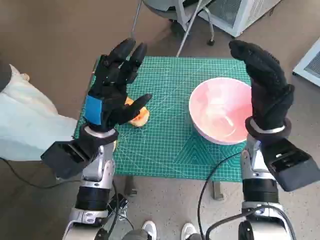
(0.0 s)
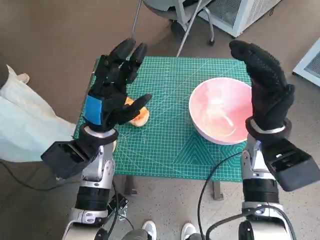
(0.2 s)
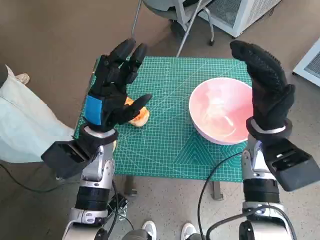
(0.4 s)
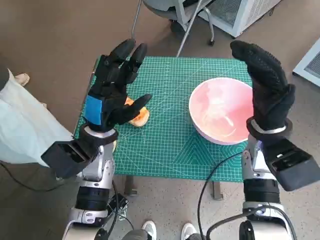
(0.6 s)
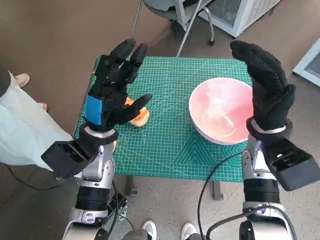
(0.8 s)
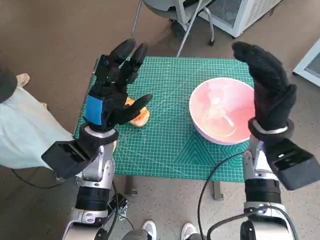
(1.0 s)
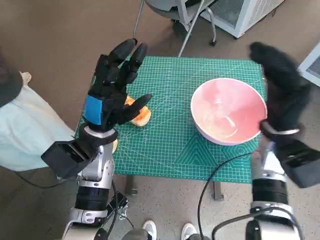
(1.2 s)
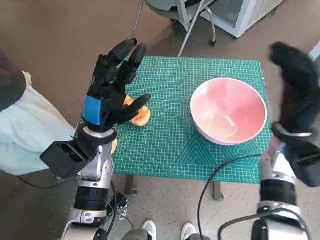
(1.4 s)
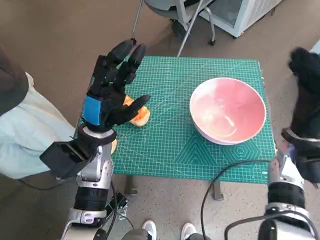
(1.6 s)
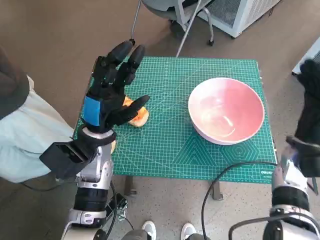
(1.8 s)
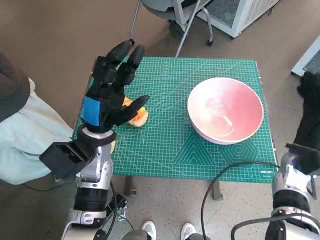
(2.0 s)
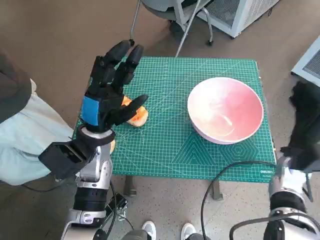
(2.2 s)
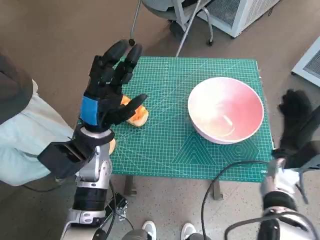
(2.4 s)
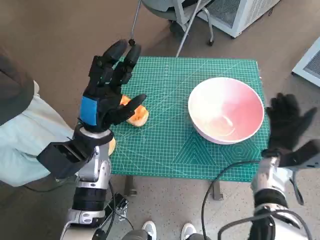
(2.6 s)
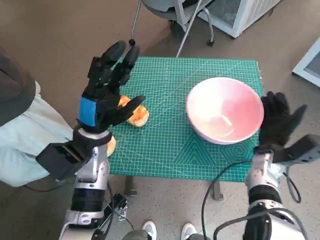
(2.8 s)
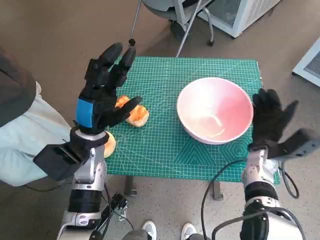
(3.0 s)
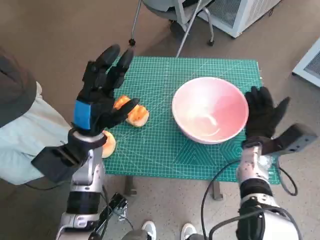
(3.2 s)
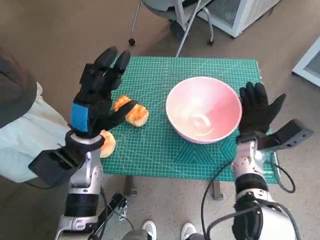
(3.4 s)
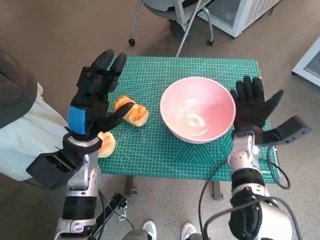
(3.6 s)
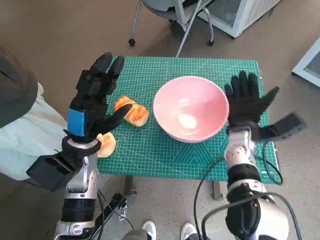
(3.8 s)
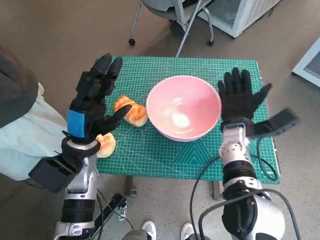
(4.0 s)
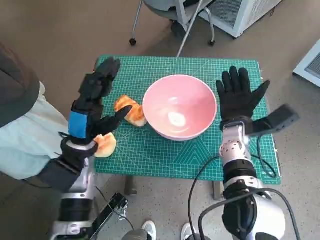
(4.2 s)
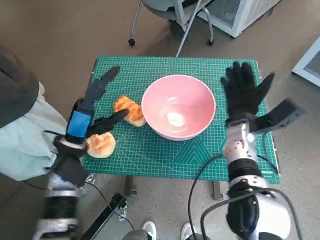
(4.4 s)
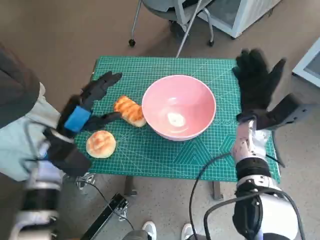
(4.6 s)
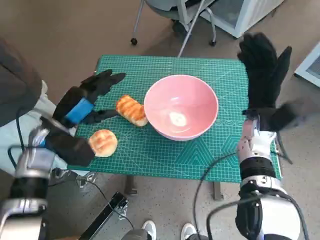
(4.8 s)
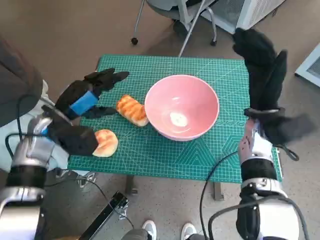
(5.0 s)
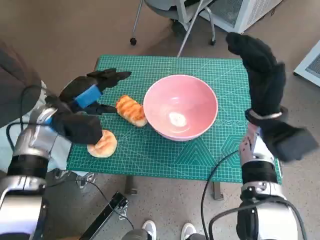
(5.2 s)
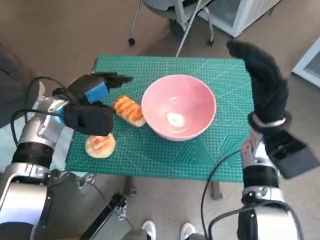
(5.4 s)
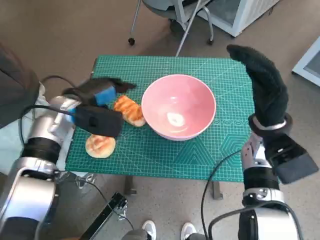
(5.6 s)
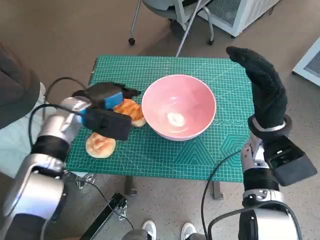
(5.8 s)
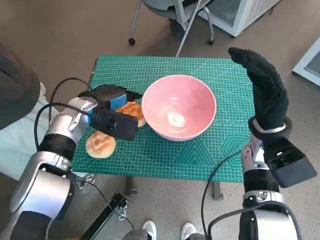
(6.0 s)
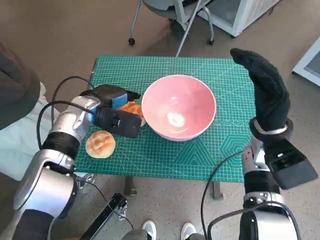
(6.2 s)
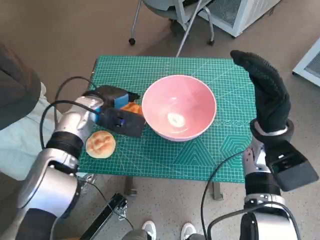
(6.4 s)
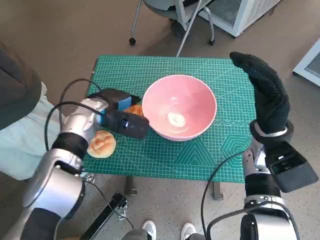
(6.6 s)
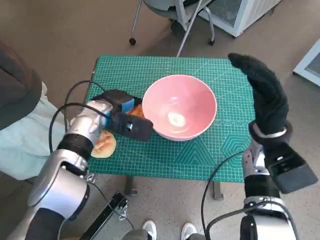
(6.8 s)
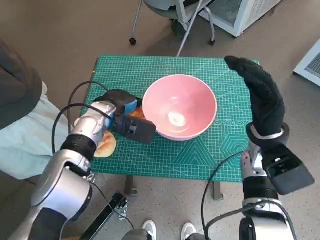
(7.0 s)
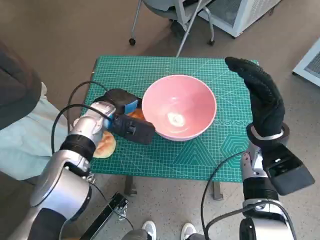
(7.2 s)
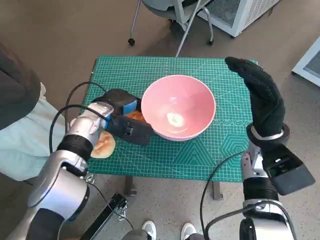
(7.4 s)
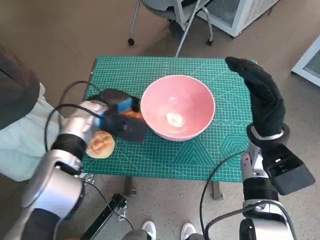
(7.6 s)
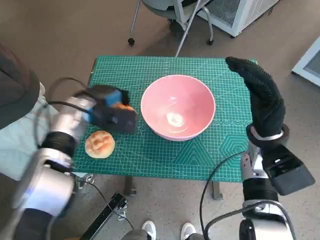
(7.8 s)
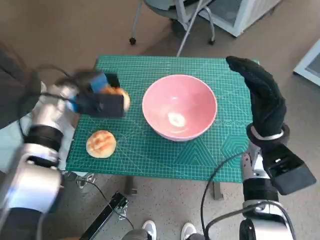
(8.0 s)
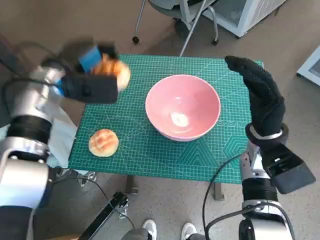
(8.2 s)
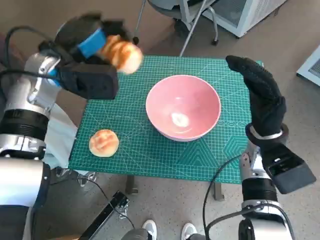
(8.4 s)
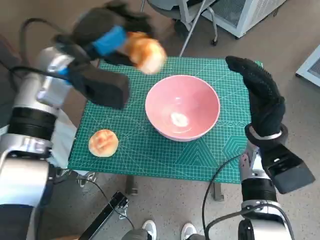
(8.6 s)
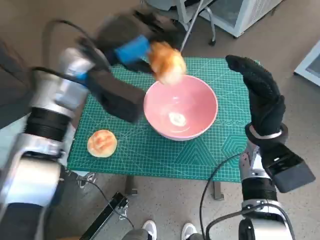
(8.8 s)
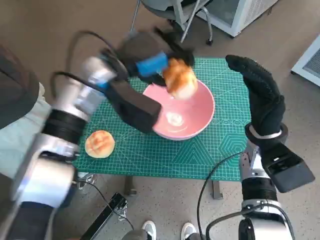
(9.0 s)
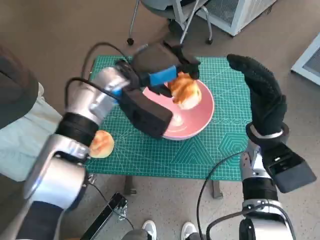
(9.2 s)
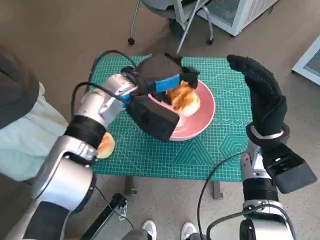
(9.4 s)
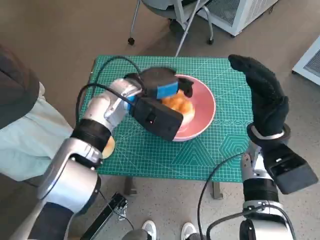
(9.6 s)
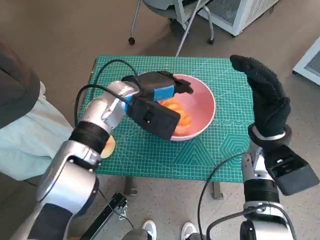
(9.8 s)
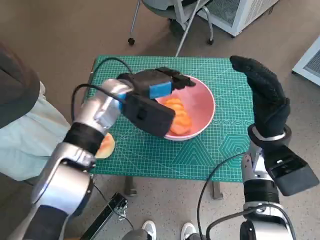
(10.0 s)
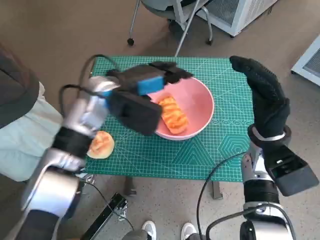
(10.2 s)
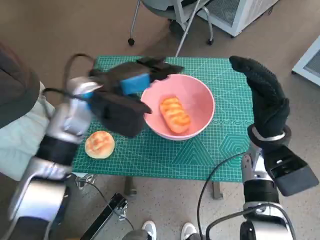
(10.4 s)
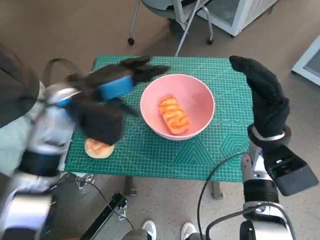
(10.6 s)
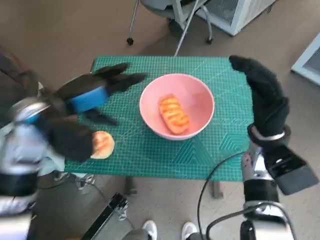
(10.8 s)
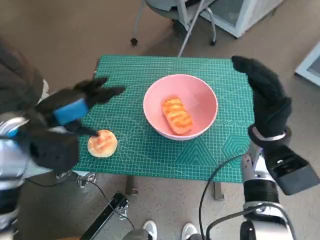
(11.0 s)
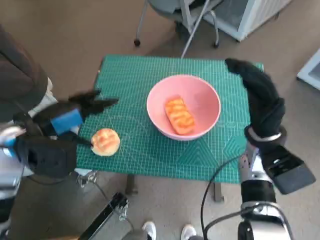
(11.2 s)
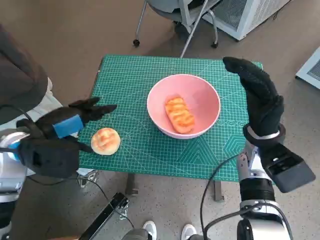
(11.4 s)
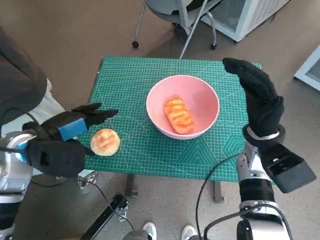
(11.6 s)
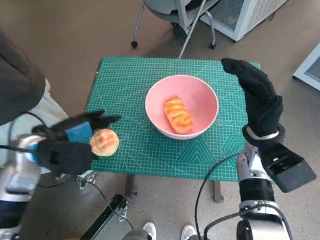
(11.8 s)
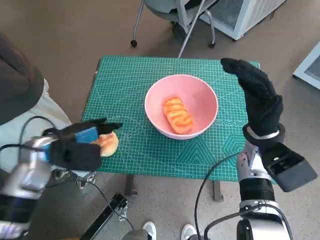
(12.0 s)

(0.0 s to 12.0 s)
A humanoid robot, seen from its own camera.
Task of the whole recording: Push the bowl to the center of the table and put the bread into the bowl.
Step, 0.0 s - 4.2 s: Move the pink bowl to the center of table with right hand.
Step, 4.4 s - 7.2 s: Grasp the long bread with left hand.
Step, 7.4 s - 9.6 s: Place the long bread in pink bowl with left hand.
1.6 s - 3.0 s: The right hand moves downward, some 10 cm.
3.0 s - 4.4 s: The right hand travels to the left by roughly 5 cm.
4.4 s - 6.0 s: The left hand travels forward by roughly 10 cm. Meanwhile the right hand travels upward by about 5 cm.
6.0 s - 7.6 s: The hands move only a little.
7.6 s - 9.0 s: The left hand travels upward and to the right by roughly 15 cm.
10.4 s - 12.0 s: The left hand heads to the left, backward and downward, covering approximately 15 cm.

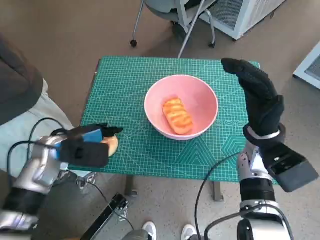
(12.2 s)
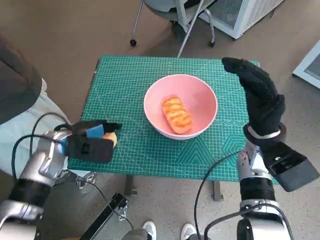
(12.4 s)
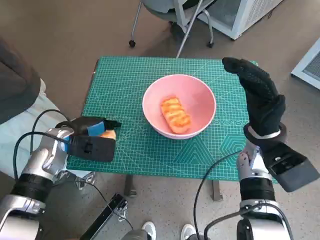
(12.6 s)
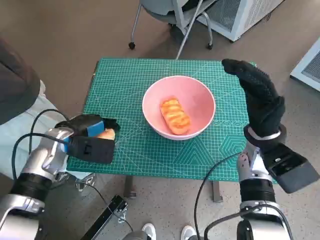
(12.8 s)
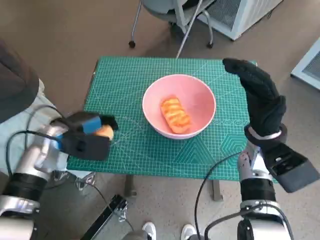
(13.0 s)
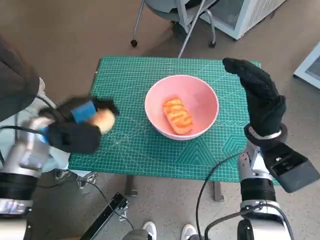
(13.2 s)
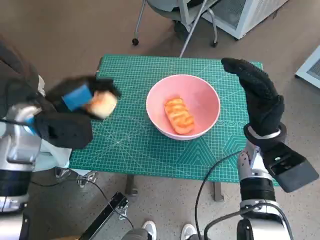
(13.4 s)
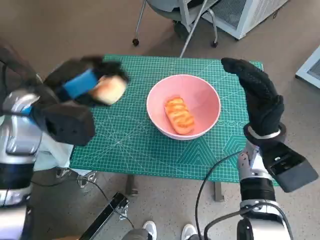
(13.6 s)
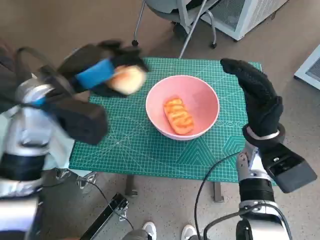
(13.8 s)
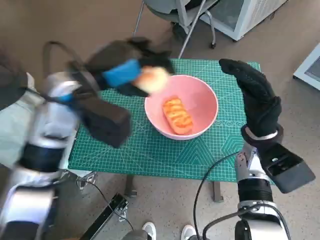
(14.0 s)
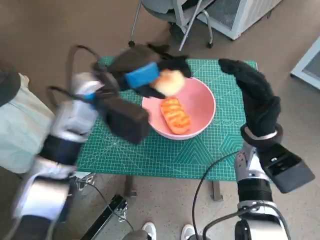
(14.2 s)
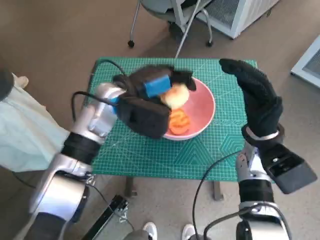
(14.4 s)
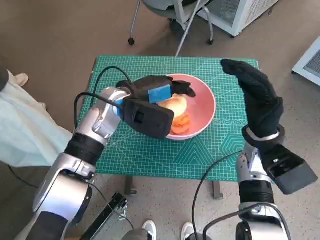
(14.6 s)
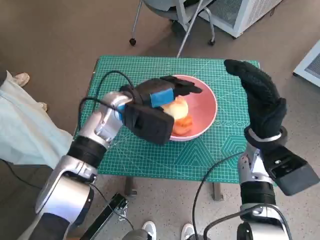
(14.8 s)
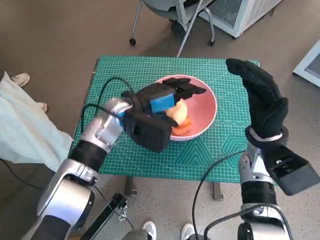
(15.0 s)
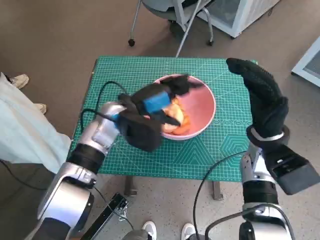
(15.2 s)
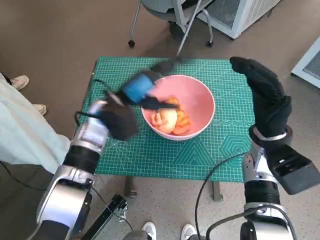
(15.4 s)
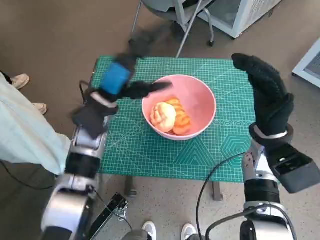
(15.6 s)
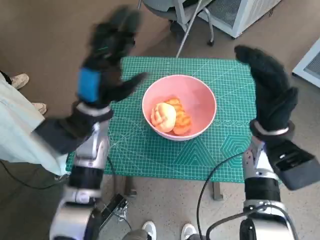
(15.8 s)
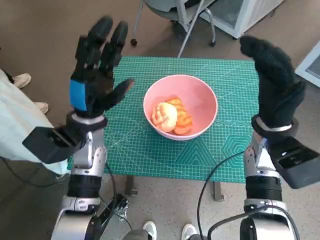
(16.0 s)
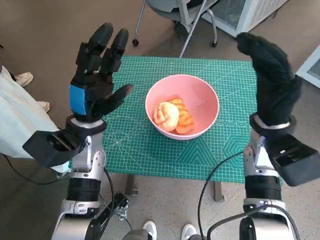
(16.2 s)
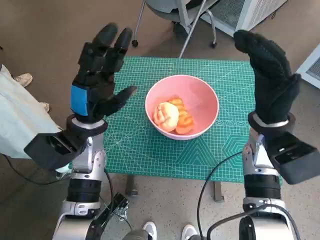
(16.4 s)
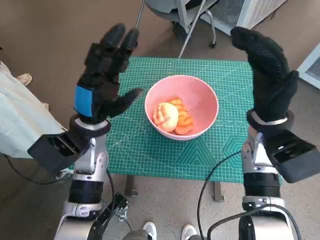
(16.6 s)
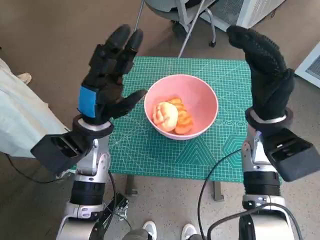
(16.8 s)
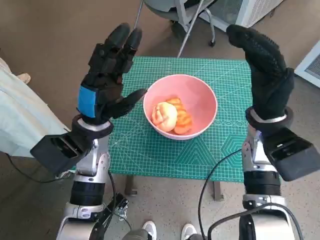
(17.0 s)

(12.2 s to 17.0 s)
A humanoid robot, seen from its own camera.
Task of the whole recording: Push the bowl to the center of the table and put the bread into the bowl.
Step, 13.0 s - 14.6 s: Place the round bread in pink bowl with left hand.
12.2 s - 13.8 s: The left hand heads upward, covering approximately 15 cm.
13.8 s - 15.4 s: The left hand moves downward and to the right, about 10 cm.
15.4 s - 17.0 s: The left hand is displaced backward by about 5 cm.

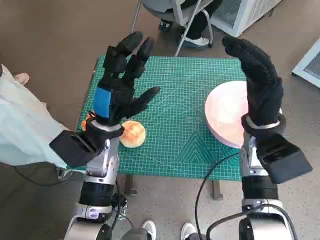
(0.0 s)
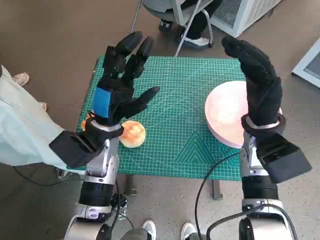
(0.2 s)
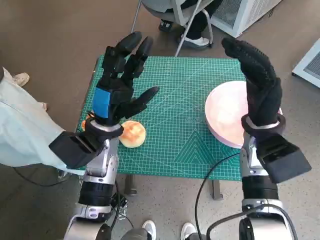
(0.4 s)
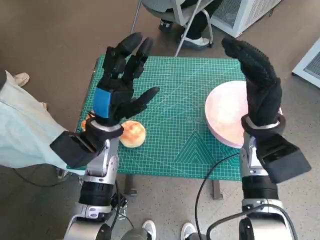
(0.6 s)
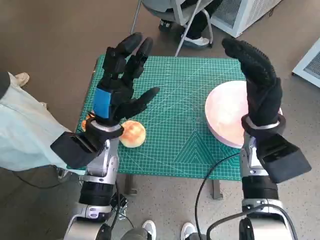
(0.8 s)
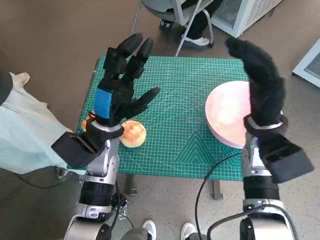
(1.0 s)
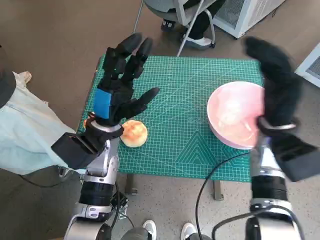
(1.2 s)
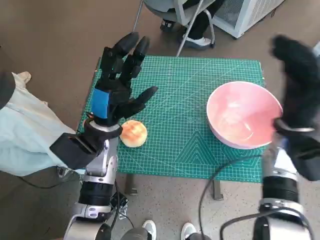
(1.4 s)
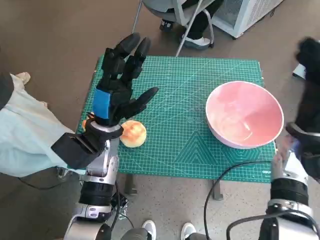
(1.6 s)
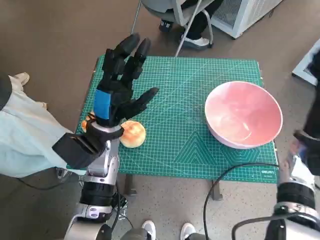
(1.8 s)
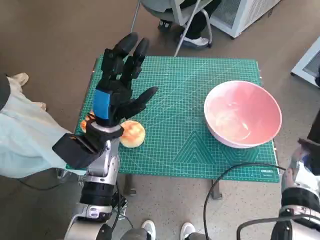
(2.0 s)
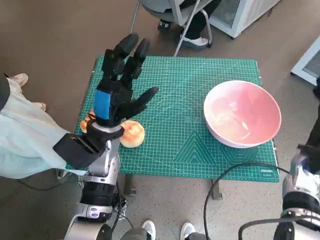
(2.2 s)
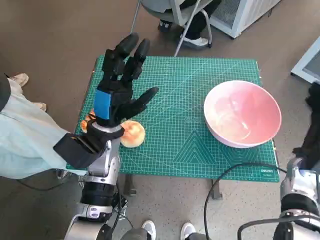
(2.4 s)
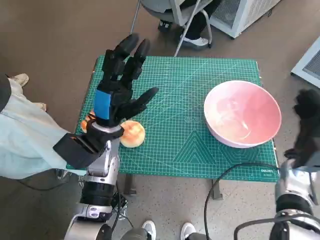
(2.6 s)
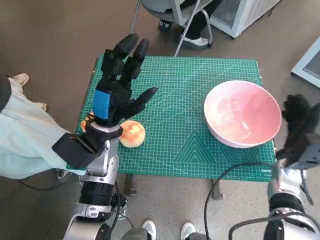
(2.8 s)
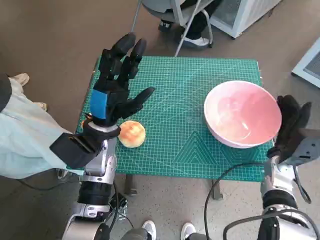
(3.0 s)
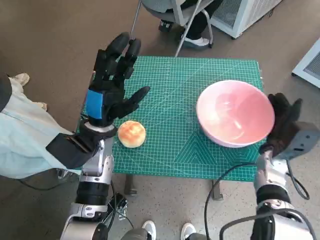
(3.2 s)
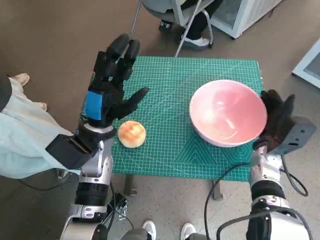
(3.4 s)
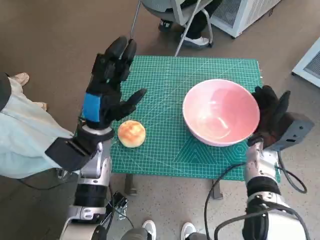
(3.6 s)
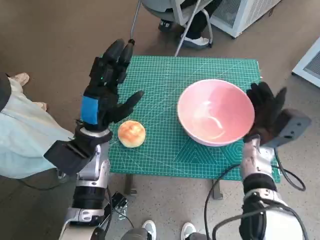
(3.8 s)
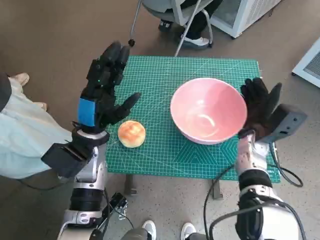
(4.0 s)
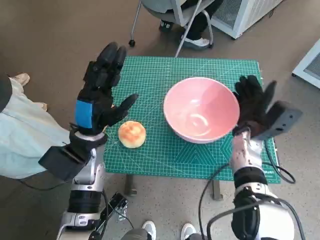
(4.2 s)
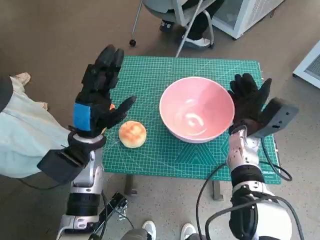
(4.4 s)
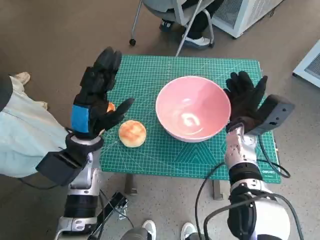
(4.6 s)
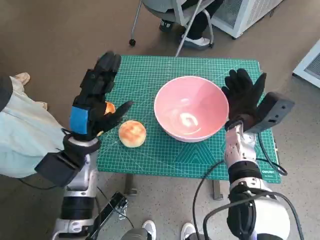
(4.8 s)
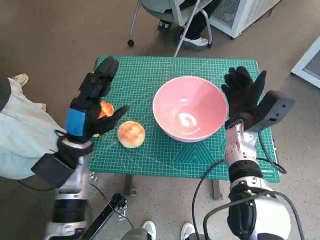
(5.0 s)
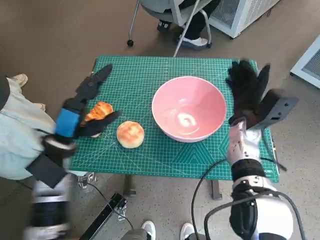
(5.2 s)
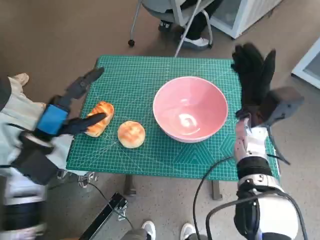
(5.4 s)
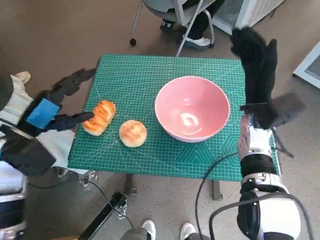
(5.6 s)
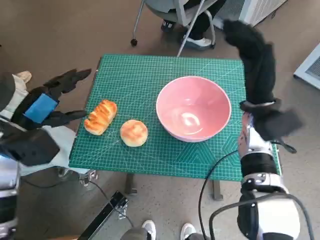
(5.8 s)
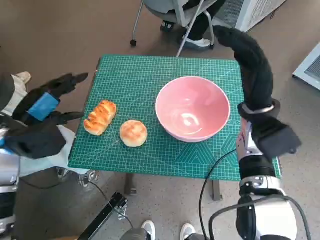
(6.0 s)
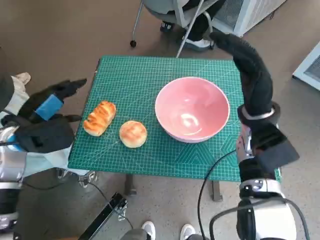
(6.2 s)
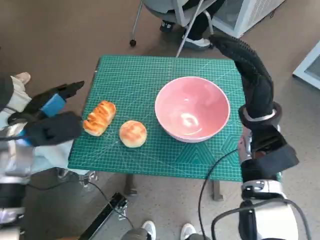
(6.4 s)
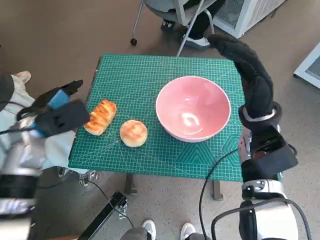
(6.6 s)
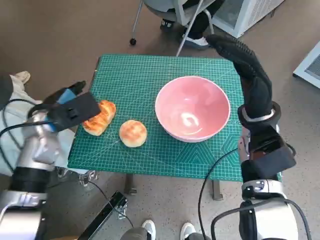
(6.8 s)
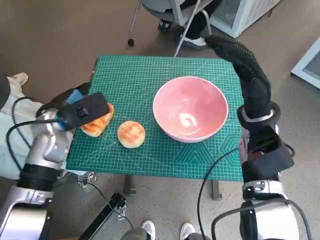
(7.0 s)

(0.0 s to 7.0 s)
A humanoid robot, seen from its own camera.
Task of the whole recording: Push the bowl to the center of the table and put the bread into the bowl.
Step, 0.0 s - 5.2 s: Move the pink bowl to the center of table with right hand.
1.4 s - 2.8 s: The right hand travels downward by roughly 10 cm.
2.8 s - 4.2 s: The right hand is displaced to the left by some 10 cm.
4.2 s - 5.6 s: The right hand shifts about 5 cm upward; the left hand goes about 10 cm to the left.
5.6 s - 7.0 s: The left hand shifts approximately 5 cm forward.
